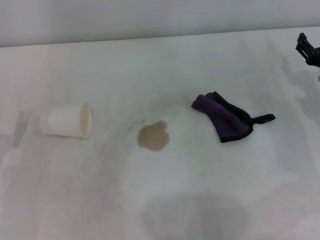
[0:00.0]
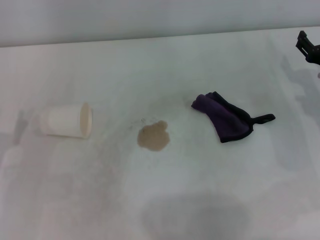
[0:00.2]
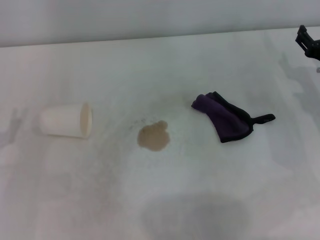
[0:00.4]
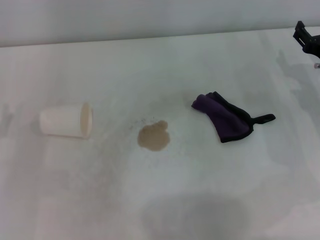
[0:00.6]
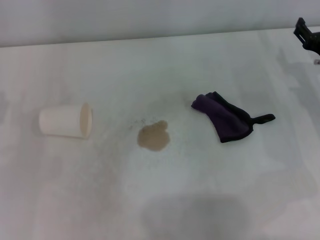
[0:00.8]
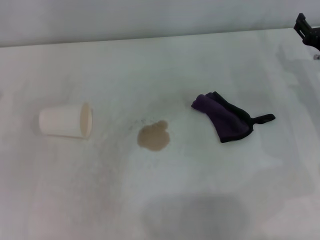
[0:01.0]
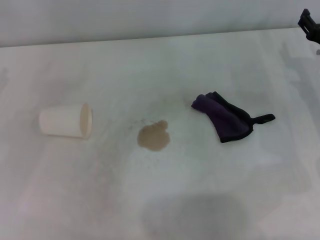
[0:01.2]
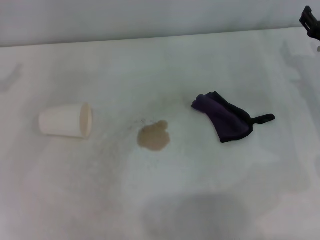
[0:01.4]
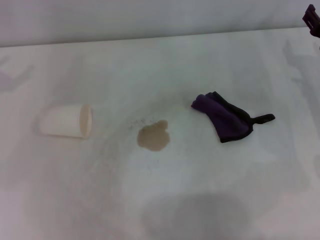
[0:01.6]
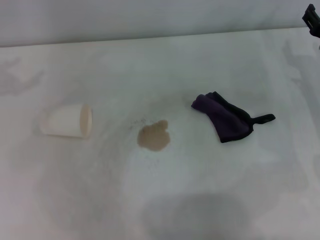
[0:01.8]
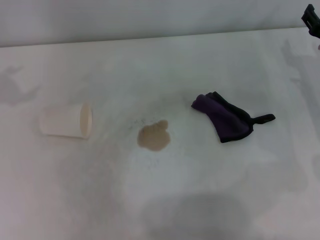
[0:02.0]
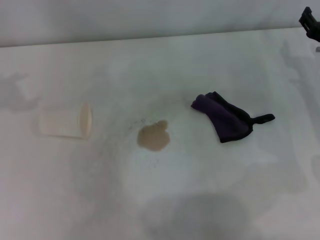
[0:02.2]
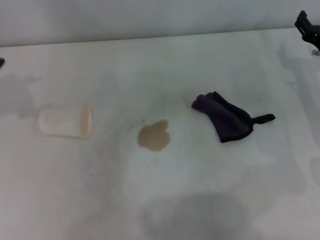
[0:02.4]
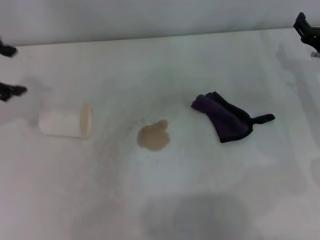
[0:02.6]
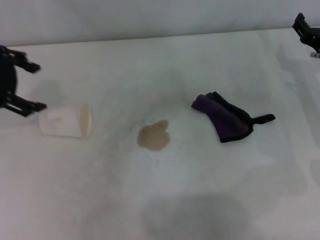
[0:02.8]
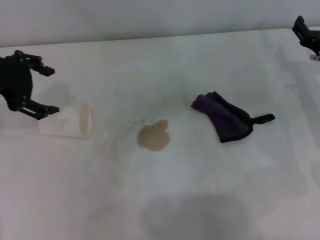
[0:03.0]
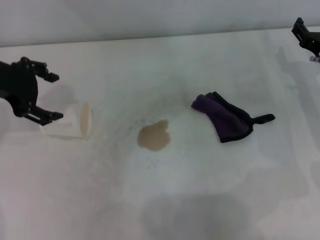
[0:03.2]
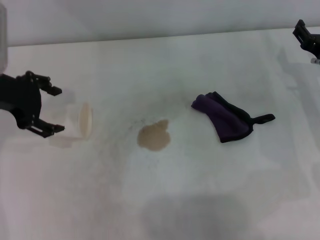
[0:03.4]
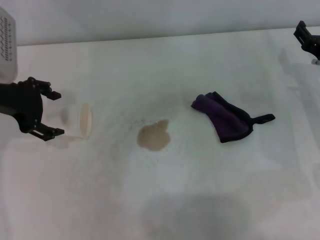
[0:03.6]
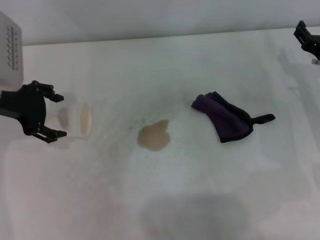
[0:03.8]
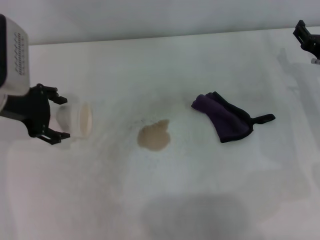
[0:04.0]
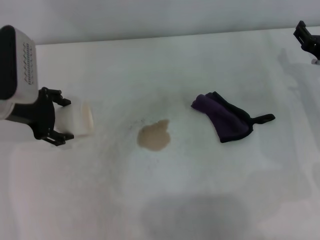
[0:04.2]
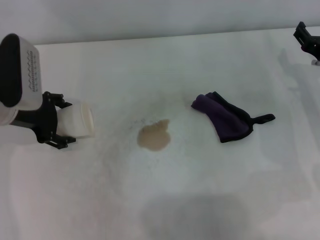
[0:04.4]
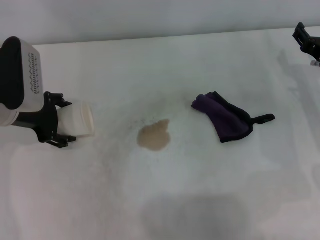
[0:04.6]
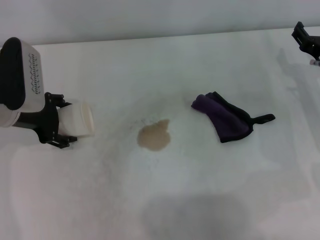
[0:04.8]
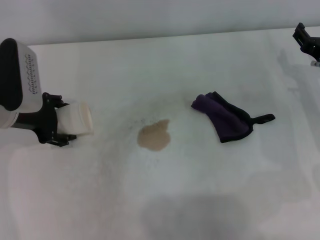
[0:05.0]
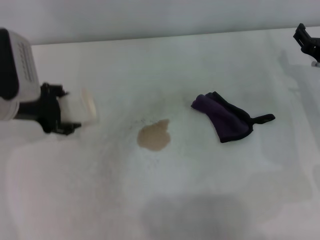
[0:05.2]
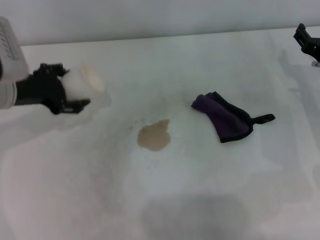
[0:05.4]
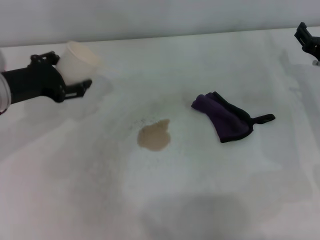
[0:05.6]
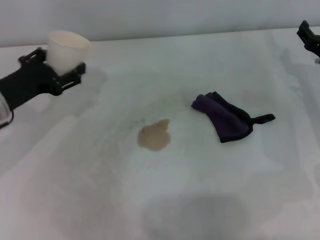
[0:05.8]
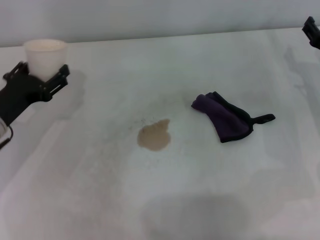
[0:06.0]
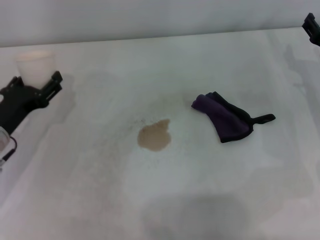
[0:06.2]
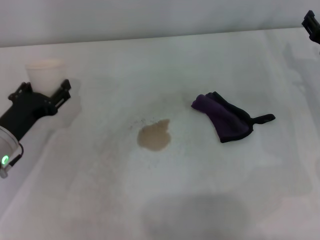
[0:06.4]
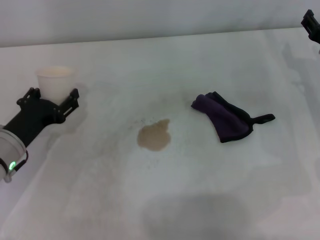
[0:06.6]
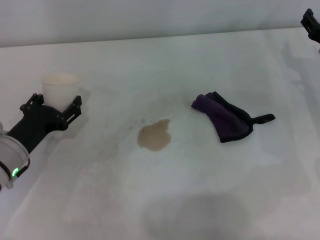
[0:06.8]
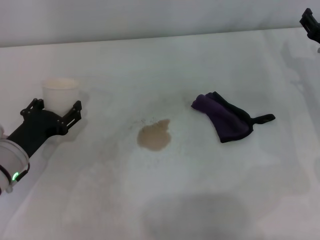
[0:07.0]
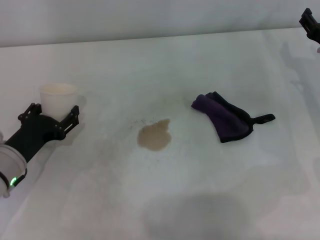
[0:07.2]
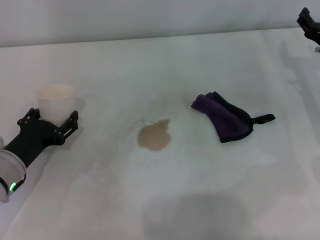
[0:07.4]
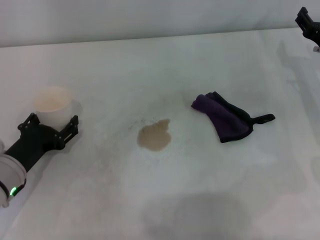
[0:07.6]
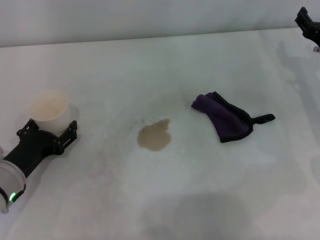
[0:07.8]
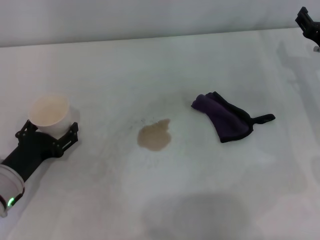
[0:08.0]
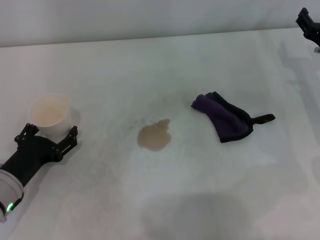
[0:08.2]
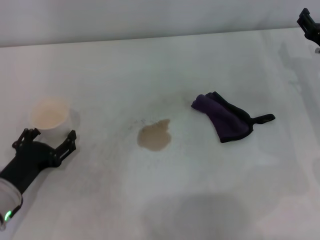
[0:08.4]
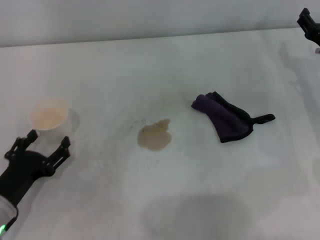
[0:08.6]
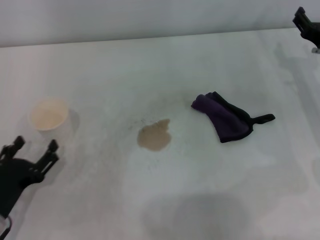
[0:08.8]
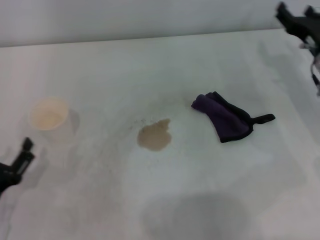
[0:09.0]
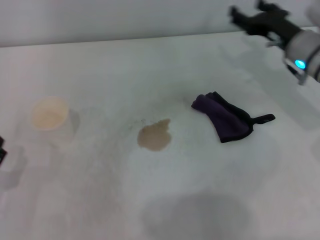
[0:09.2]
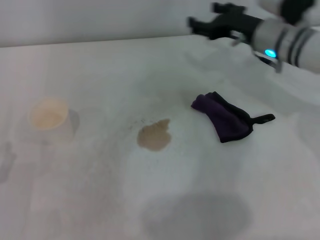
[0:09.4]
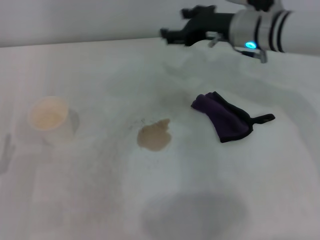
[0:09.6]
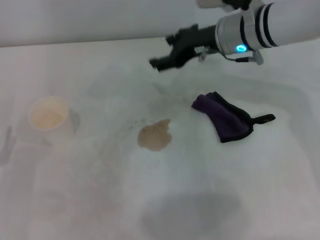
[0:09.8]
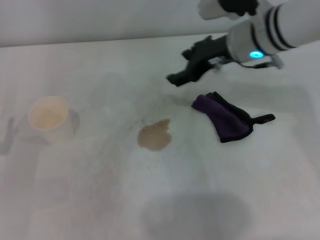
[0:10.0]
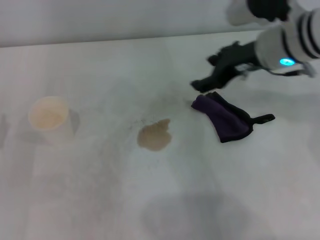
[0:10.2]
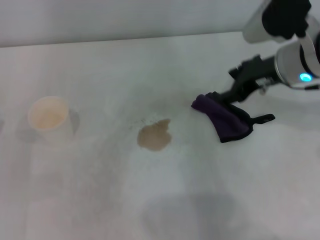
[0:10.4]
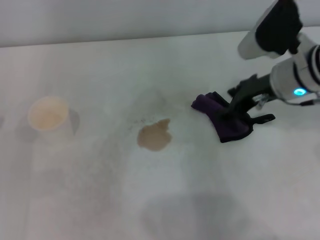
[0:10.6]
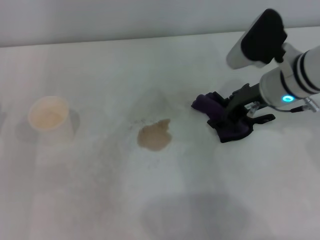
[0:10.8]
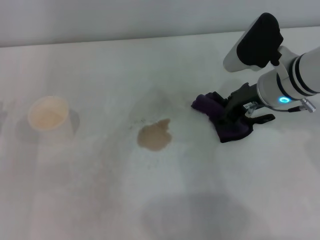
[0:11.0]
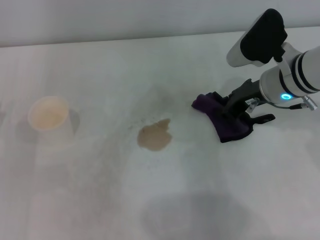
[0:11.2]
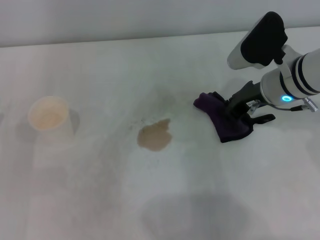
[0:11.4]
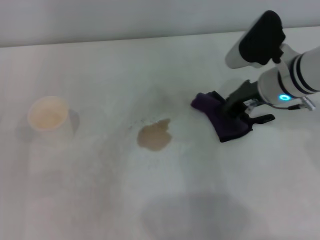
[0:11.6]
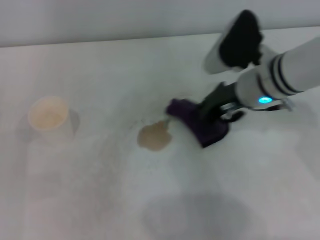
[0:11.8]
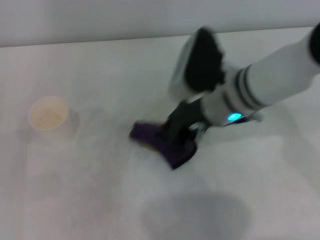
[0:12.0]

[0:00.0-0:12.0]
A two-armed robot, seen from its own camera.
Step, 0.0 to 4.4 s: Grasp the paper cup with the left gripper.
Step, 4.6 to 8.2 s: Stand the paper cup upright with the left gripper.
Step, 8.4 to 11.4 s: Grasp the rag with the right gripper.
1.6 to 3.0 s: The left gripper goes roughly 15 cm to the right.
3.0 to 4.4 s: The left gripper goes some 10 cm downward.
4.4 to 6.0 s: The left gripper is displaced downward and backward by approximately 10 cm.
6.0 to 7.6 s: The left gripper heads downward, covering about 5 cm.
7.6 to 9.0 s: The left gripper moves backward, approximately 10 cm.
9.0 to 10.4 s: The left gripper is displaced forward by roughly 5 cm, while the right gripper shifts some 15 cm upward and to the left.
10.4 to 12.0 s: The right gripper shifts roughly 10 cm to the left, and closes its fingers.

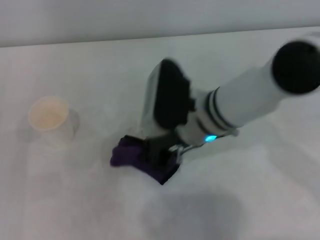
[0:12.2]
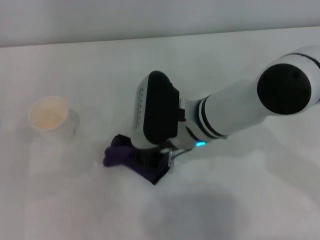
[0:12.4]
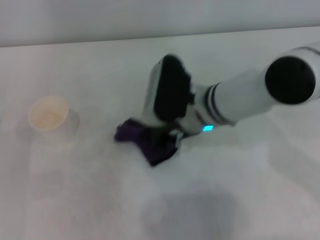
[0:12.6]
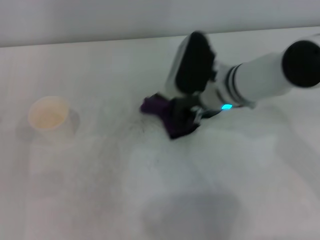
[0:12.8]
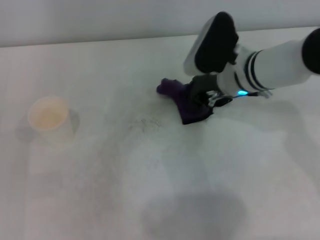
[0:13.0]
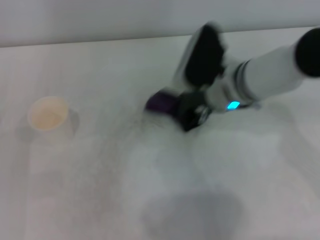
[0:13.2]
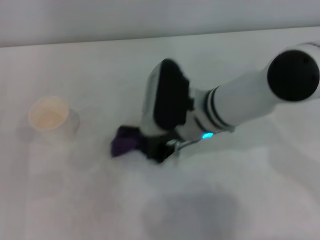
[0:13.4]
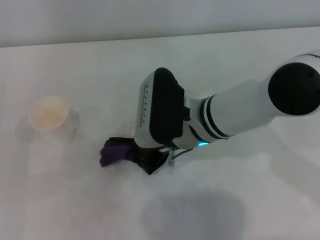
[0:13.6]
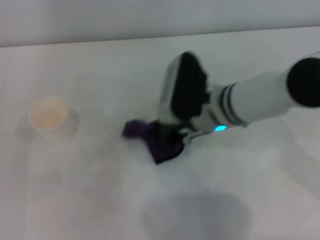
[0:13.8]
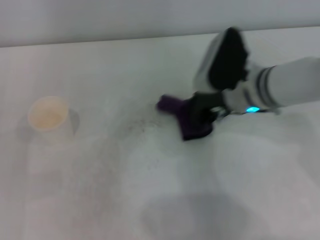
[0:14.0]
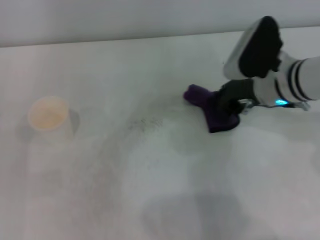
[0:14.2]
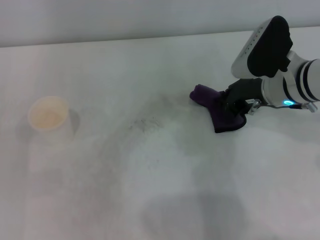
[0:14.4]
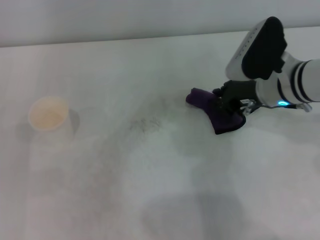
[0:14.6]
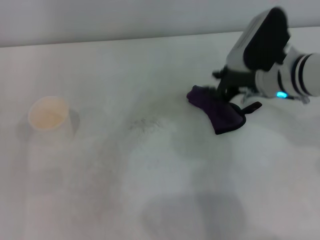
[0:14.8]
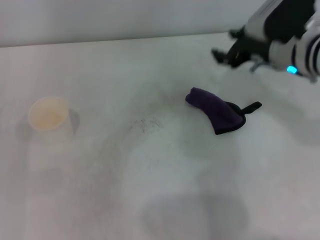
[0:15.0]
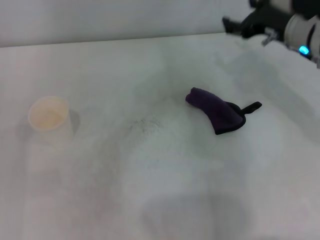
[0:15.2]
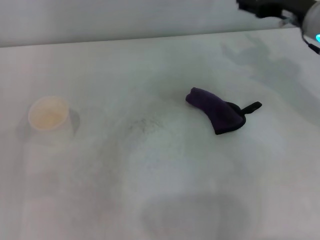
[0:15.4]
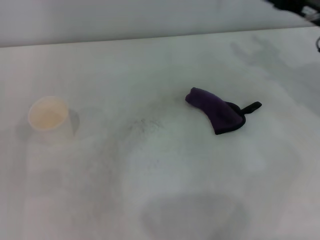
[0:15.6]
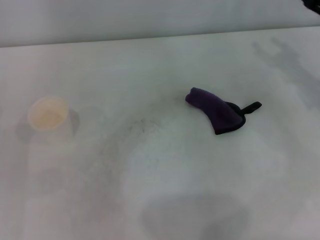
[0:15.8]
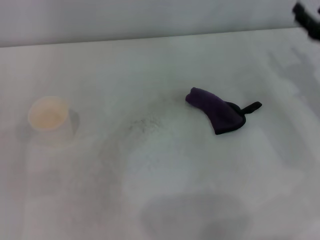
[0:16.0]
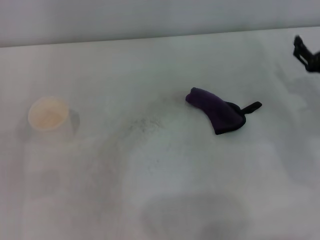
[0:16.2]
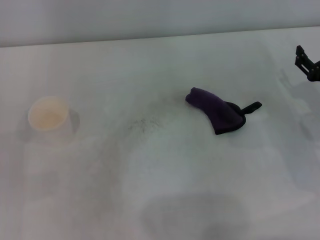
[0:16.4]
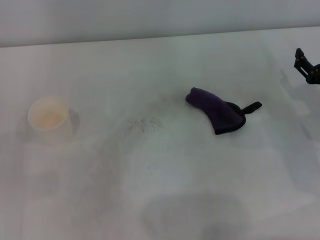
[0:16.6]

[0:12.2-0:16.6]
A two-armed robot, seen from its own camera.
Step, 12.2 to 13.8 s: Wipe the stains off the table with the right gripper.
Step, 14.0 to 14.4 s: Place the rag on the table with the right gripper.
12.2 to 13.6 s: The right gripper travels to the right and back again, roughly 5 cm each way.
13.6 to 15.2 s: The right gripper heads to the right, covering approximately 15 cm, and opens its fingers.
15.2 to 16.6 s: The right gripper heads downward, backward and to the right, covering about 15 cm.

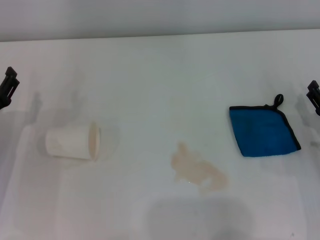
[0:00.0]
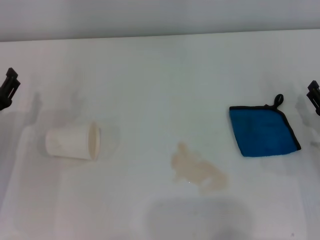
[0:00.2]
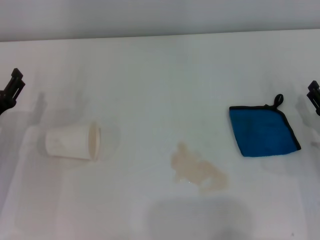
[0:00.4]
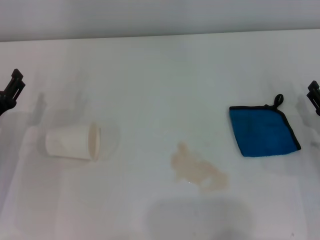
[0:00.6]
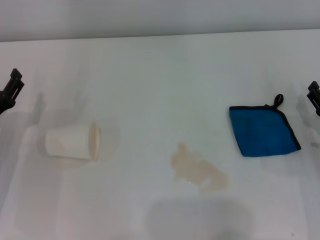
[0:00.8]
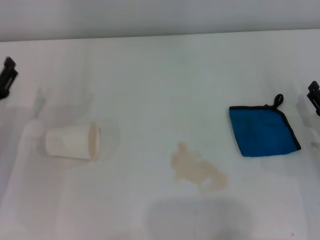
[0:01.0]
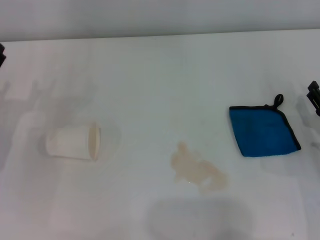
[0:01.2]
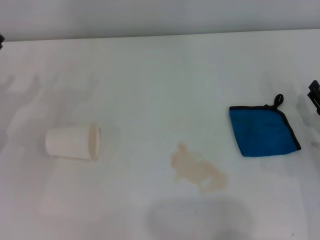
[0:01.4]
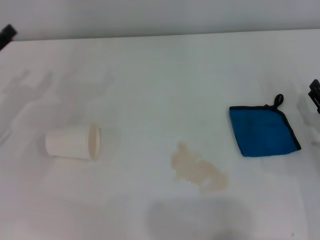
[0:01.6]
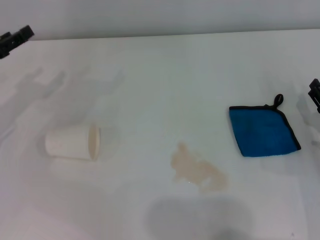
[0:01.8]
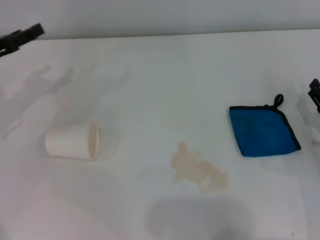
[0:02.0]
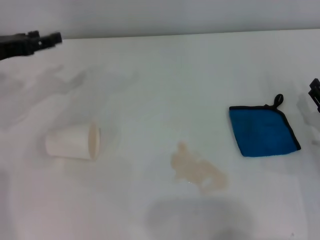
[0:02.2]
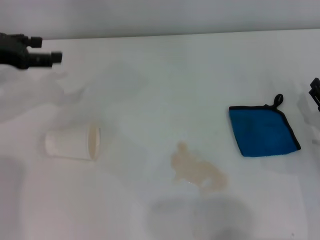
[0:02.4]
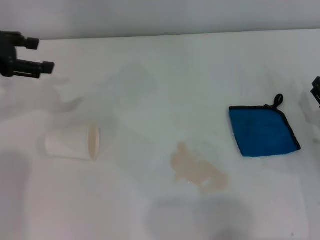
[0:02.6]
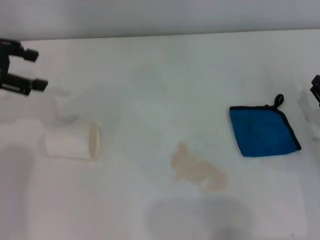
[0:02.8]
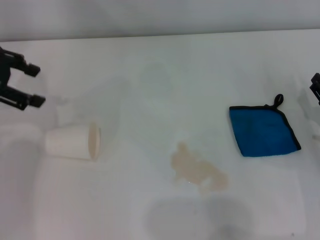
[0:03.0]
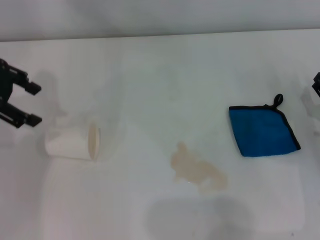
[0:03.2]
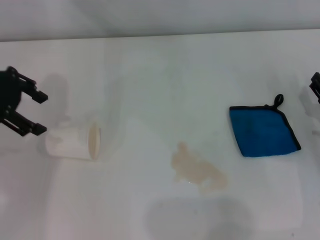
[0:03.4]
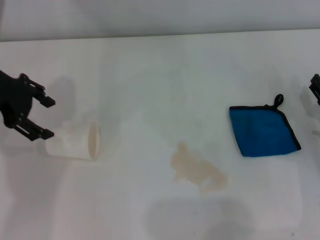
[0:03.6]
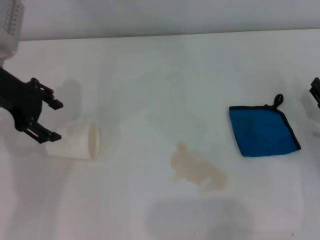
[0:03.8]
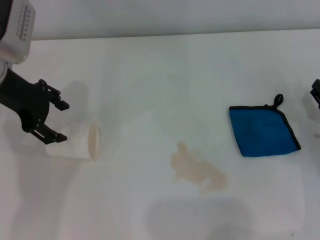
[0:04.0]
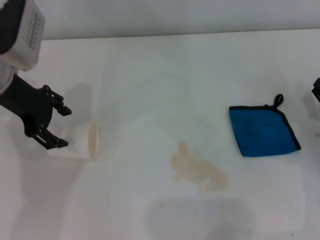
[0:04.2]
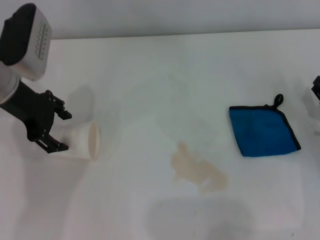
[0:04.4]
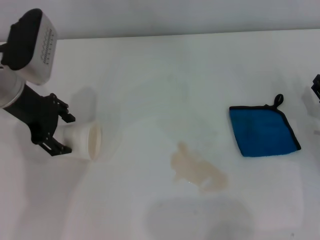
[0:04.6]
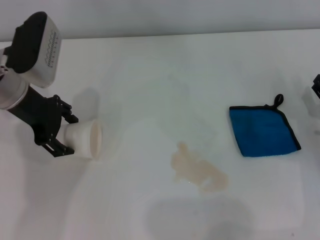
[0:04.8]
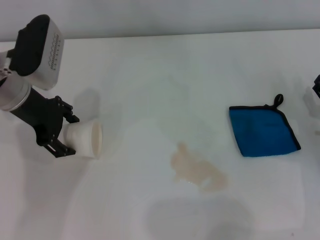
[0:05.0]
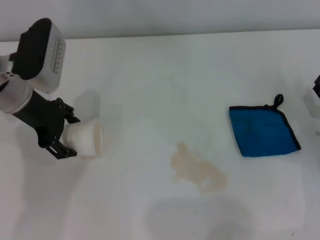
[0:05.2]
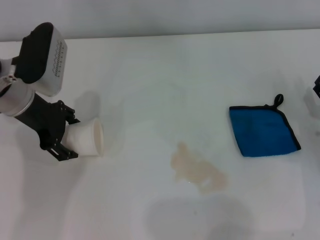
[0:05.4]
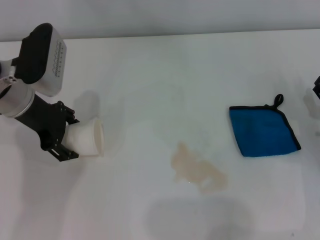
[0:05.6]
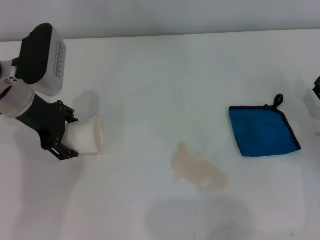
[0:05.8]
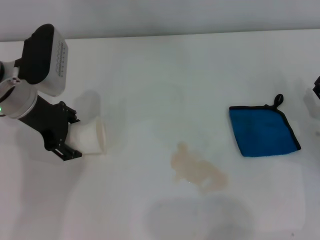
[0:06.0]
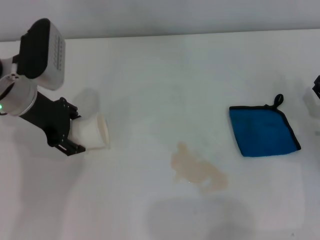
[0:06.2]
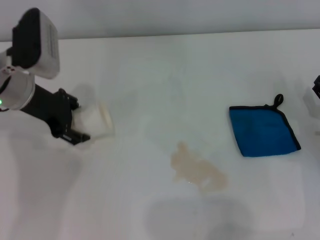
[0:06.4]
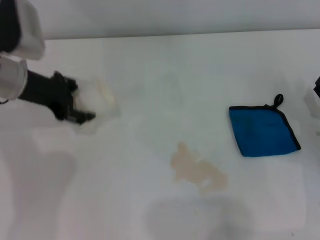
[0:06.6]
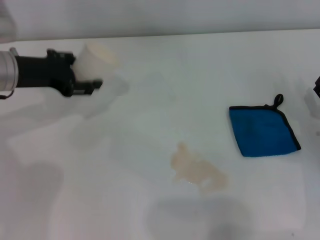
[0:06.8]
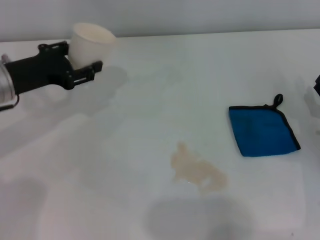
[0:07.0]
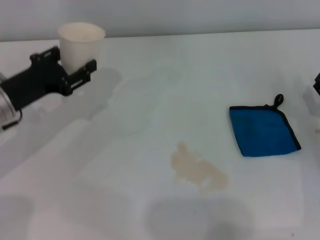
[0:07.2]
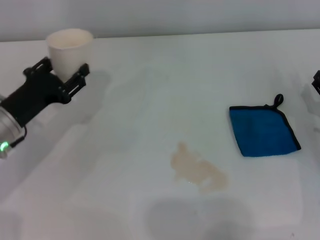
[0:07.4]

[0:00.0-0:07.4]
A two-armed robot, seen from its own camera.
Step, 0.0 to 5.8 s: Grasp the paper cup with the left gripper.
0.0 to 1.4 s: The left gripper shifts by approximately 5 cm.
1.4 to 3.0 s: The left gripper moves upward and forward, roughly 15 cm.
3.0 to 4.4 s: The left gripper travels to the right and downward by some 10 cm.
4.4 to 6.0 s: The grippers stay close to where they were, moving slightly.
6.0 to 7.4 s: The left gripper travels backward and downward by about 10 cm, and closes up.
